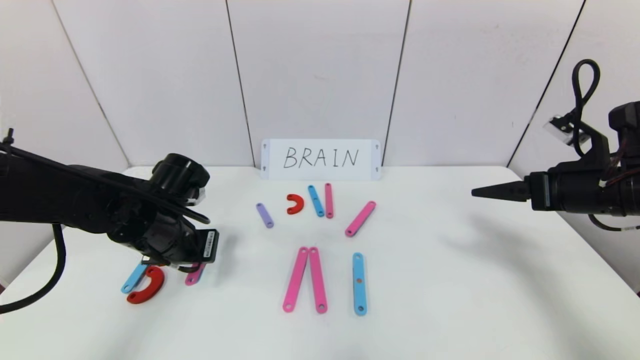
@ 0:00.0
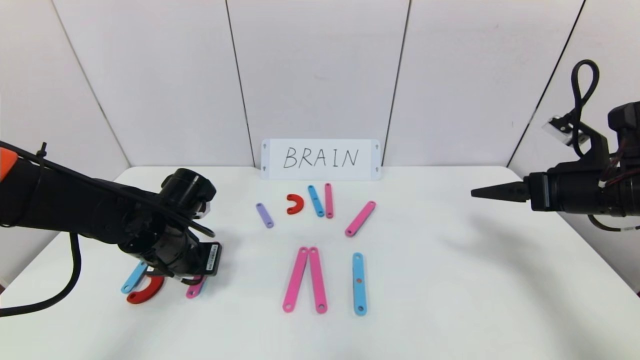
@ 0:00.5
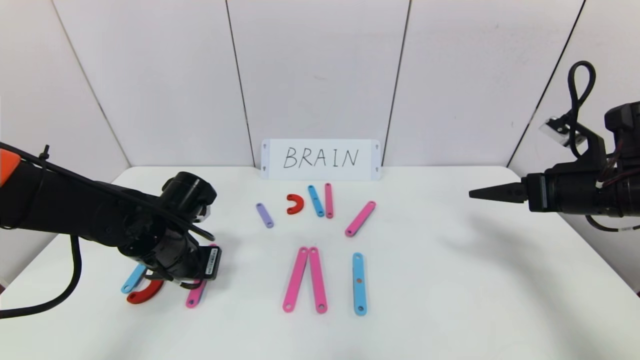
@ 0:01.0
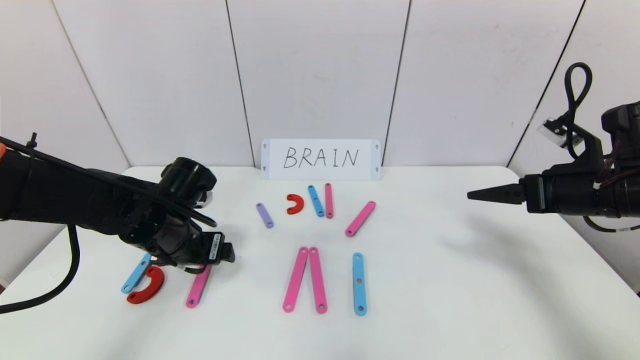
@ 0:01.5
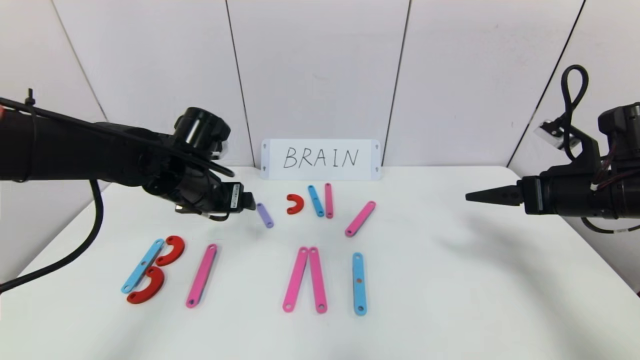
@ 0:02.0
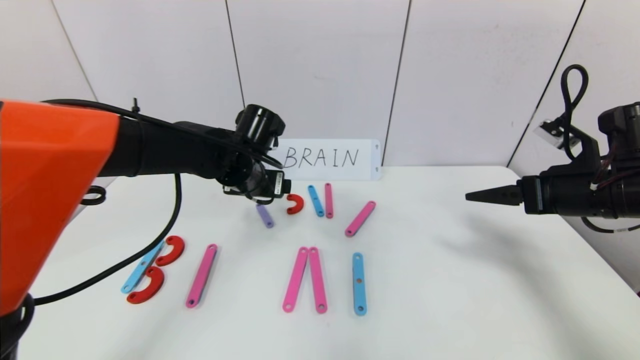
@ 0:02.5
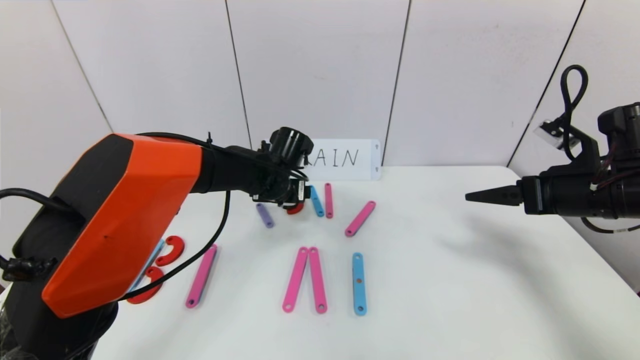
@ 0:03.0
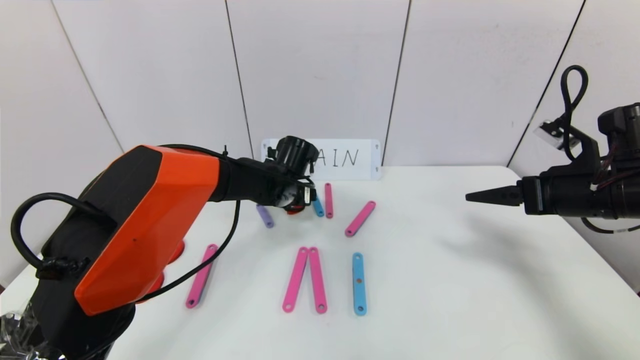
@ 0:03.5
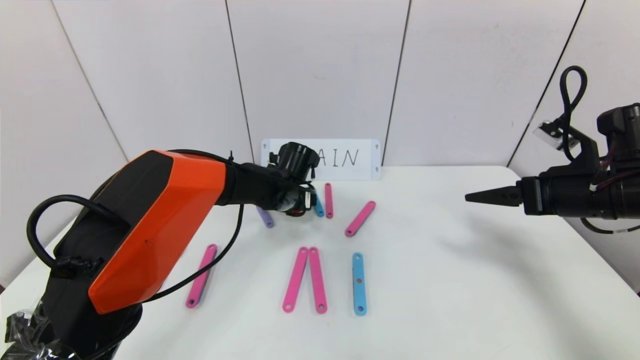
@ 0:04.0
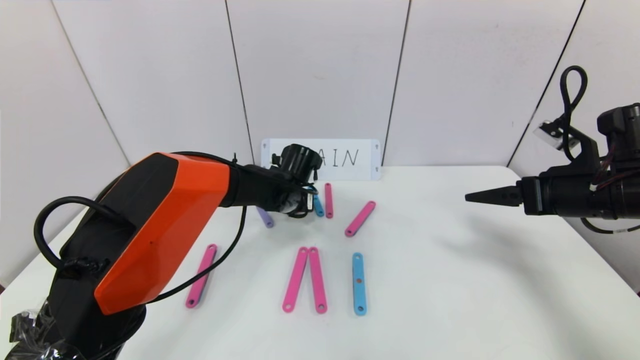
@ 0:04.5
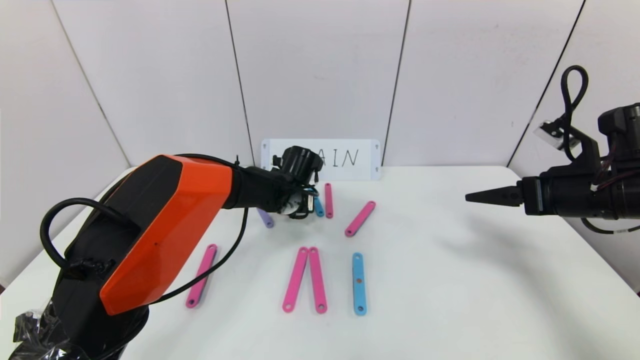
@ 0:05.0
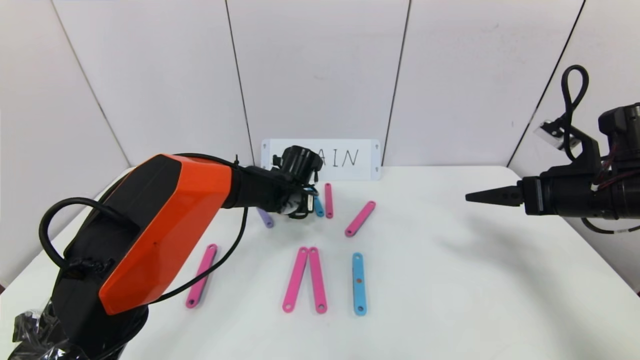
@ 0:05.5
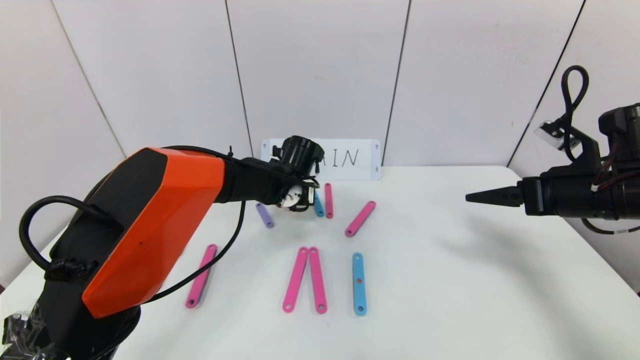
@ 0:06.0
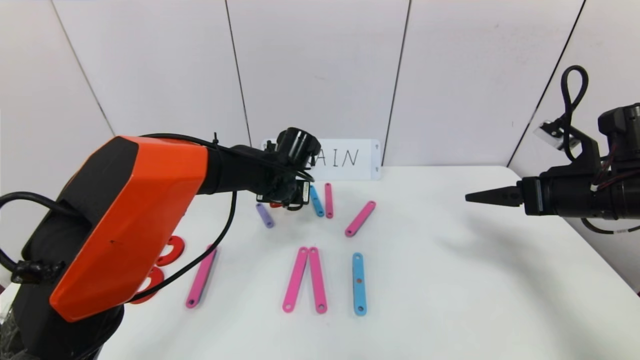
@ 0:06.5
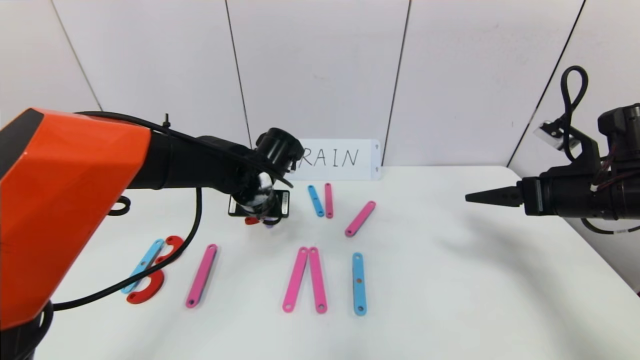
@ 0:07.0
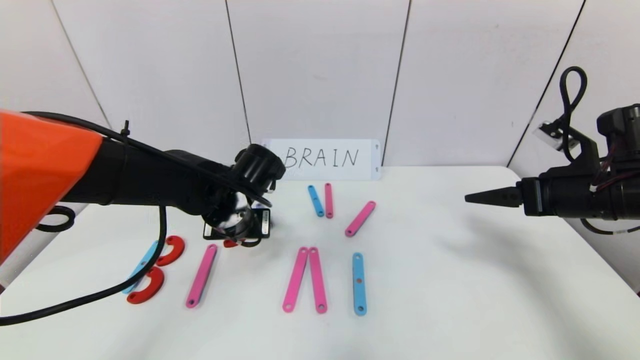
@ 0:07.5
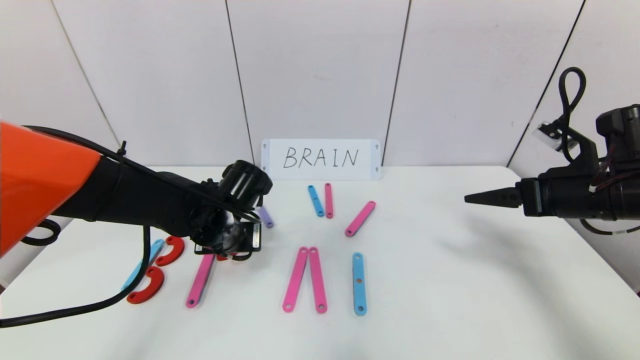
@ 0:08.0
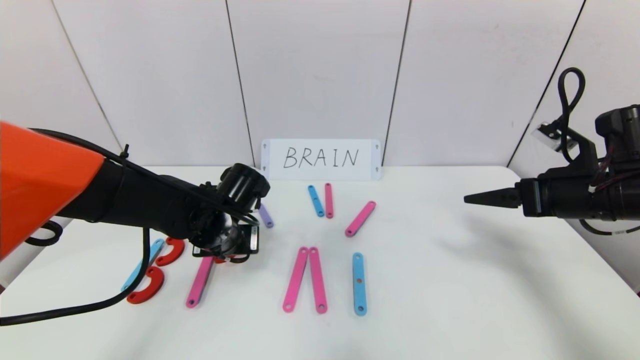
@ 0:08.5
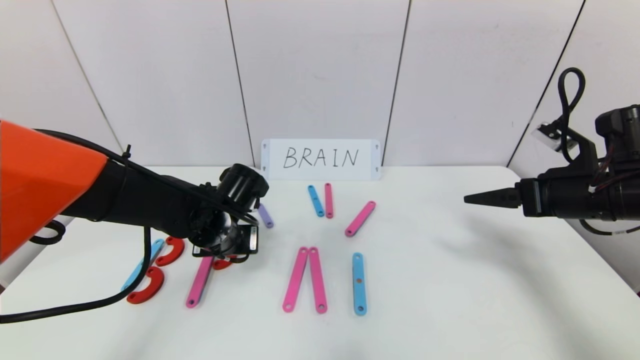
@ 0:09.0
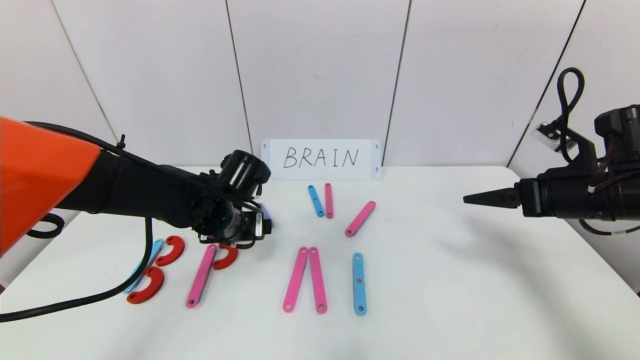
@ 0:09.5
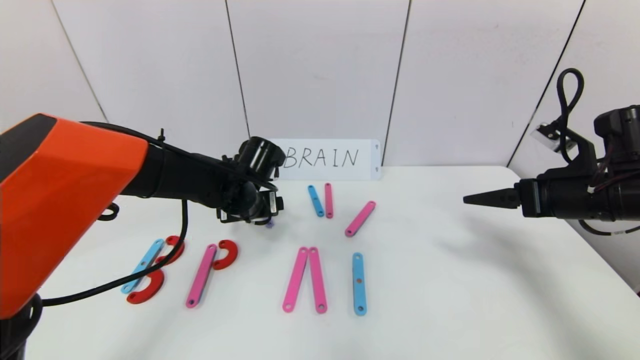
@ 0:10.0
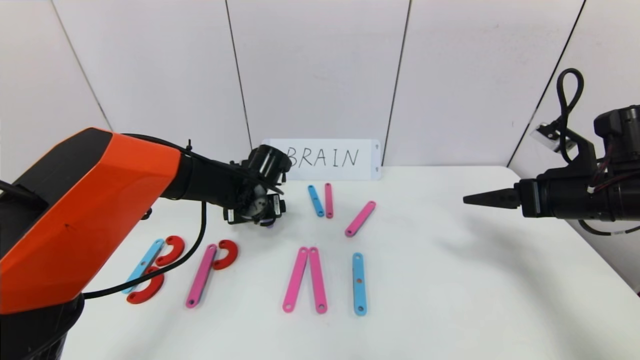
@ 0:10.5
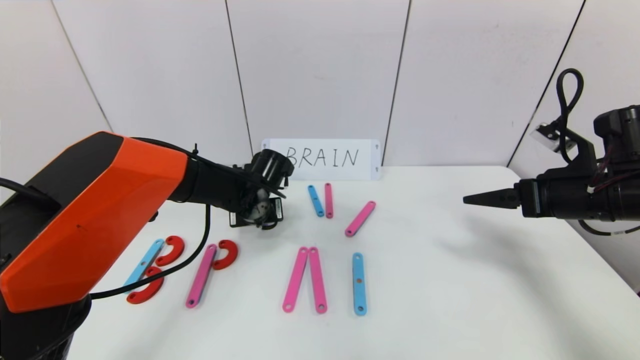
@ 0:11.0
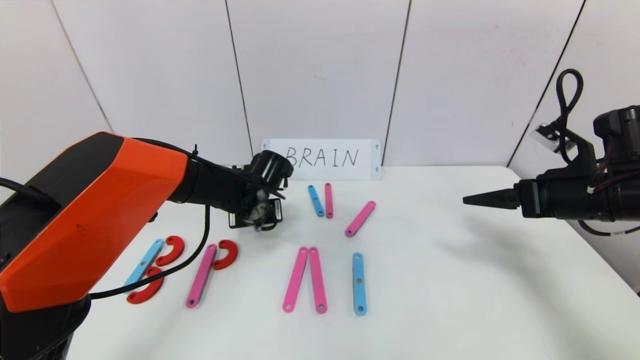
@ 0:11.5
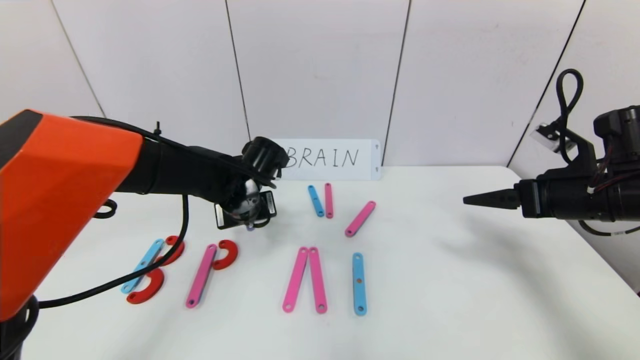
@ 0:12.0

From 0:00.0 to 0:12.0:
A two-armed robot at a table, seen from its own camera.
Task of the whole recording: rearrange the word baai as brain.
From 0:00.0 to 0:02.0: The left gripper goes about 5 cm upward, and opens its fingers.
From 0:02.0 to 0:04.0: The left gripper shifts roughly 15 cm to the right, forward and downward.
From 0:04.0 to 0:06.0: The left gripper closes its fingers.
From 0:06.0 to 0:08.0: The left gripper goes some 15 cm backward and to the left.
From 0:08.0 to 0:10.0: The left gripper travels forward by about 5 cm, and opens up.
From 0:10.0 to 0:12.0: The left gripper closes.

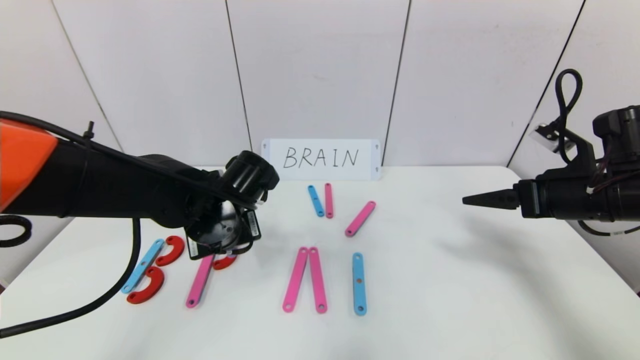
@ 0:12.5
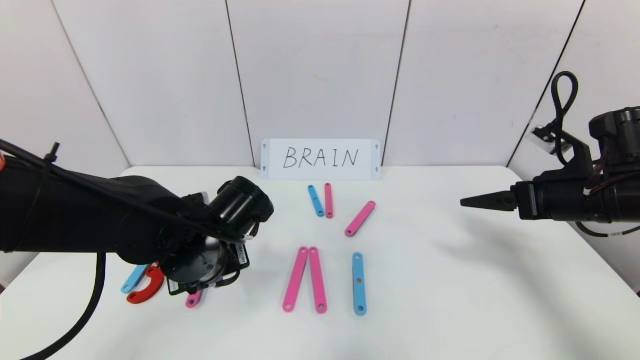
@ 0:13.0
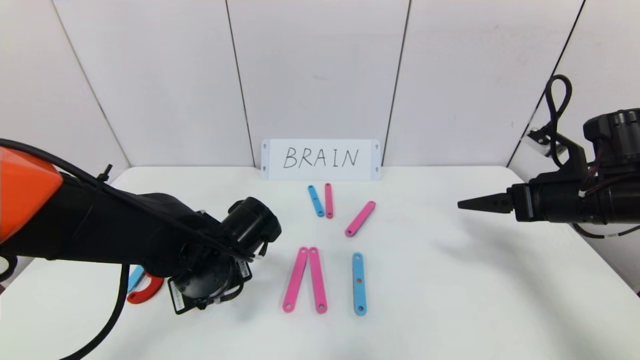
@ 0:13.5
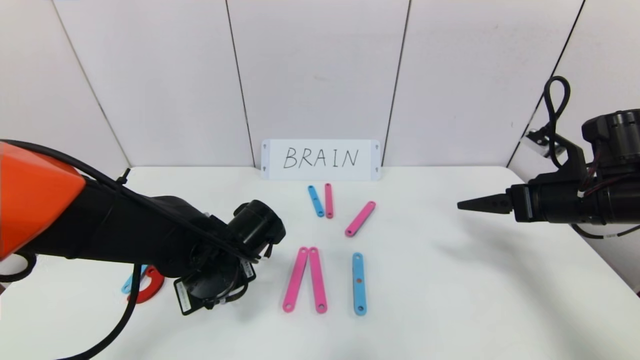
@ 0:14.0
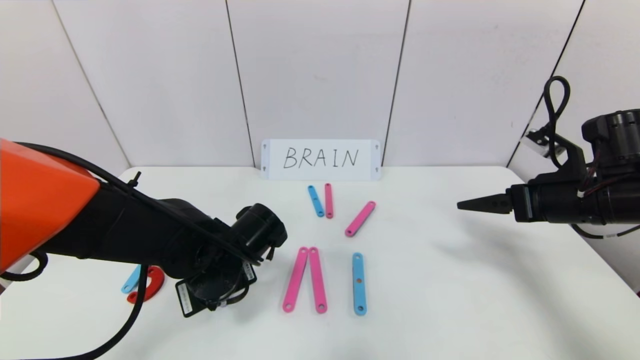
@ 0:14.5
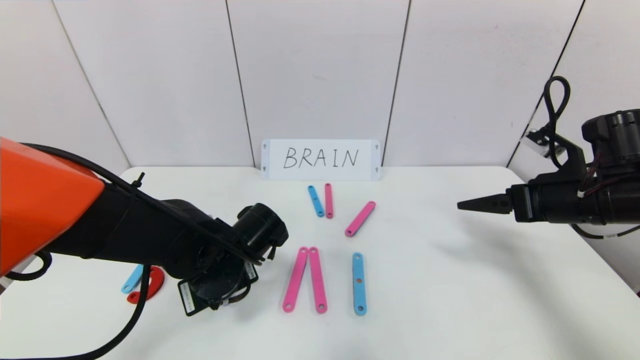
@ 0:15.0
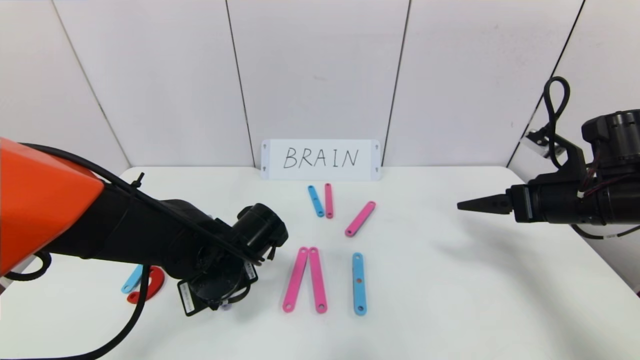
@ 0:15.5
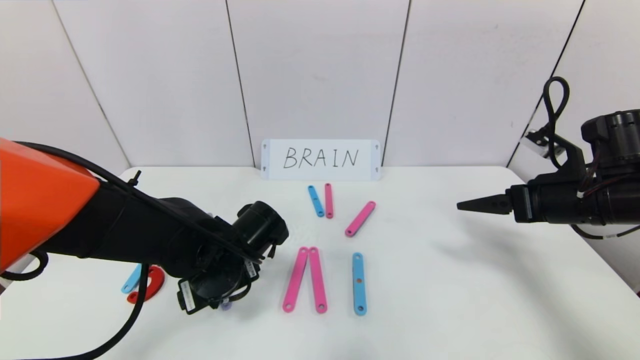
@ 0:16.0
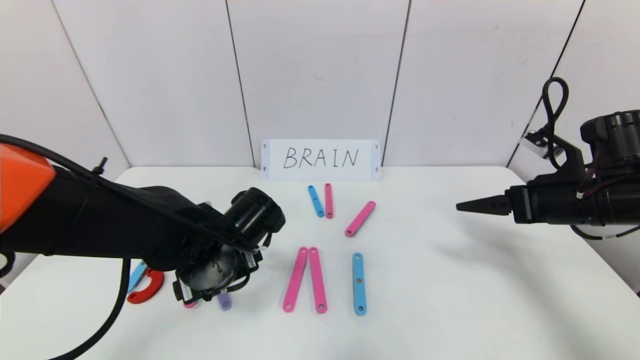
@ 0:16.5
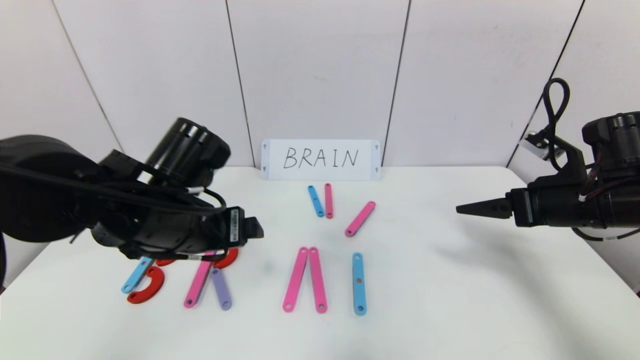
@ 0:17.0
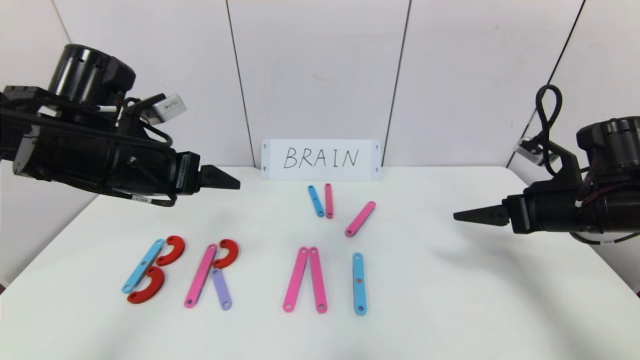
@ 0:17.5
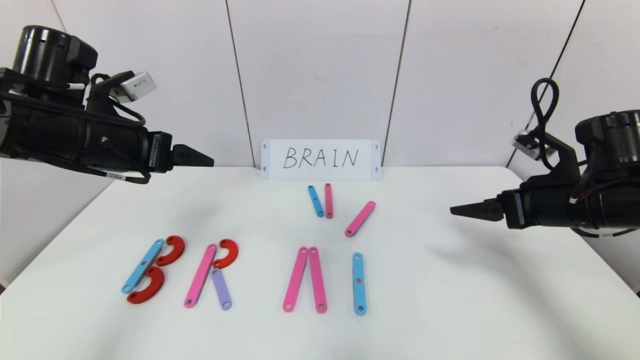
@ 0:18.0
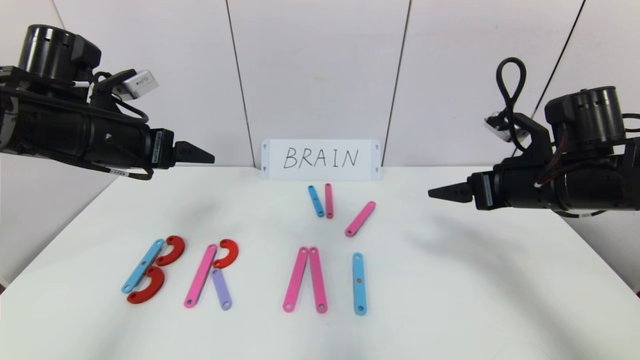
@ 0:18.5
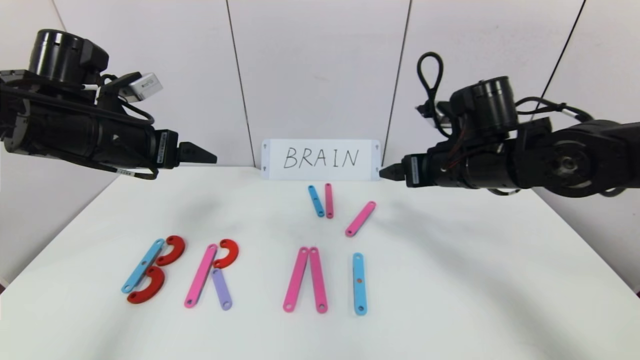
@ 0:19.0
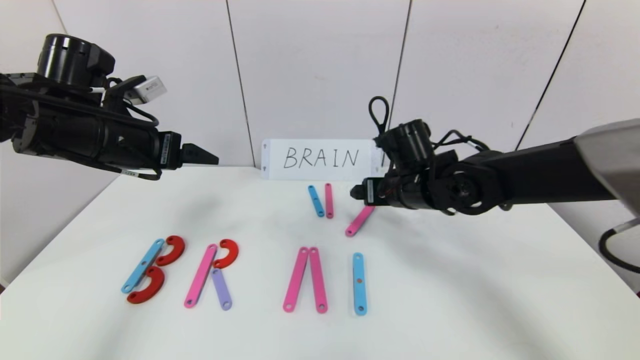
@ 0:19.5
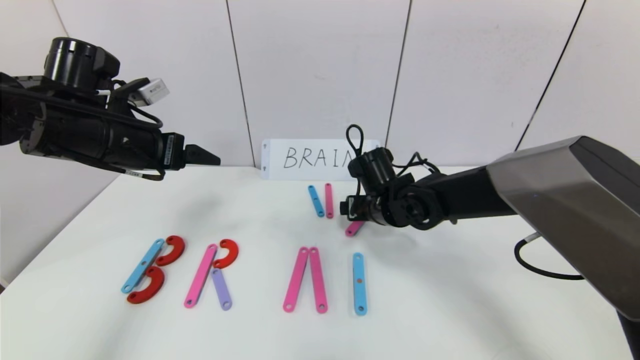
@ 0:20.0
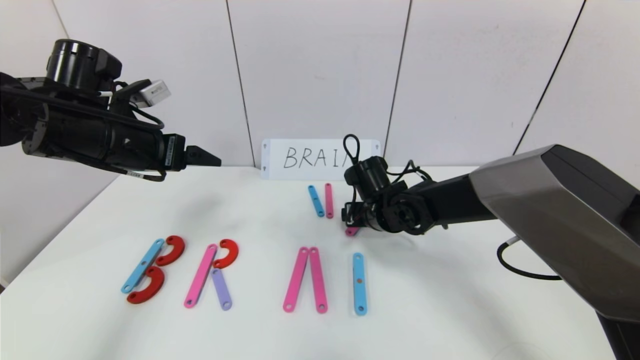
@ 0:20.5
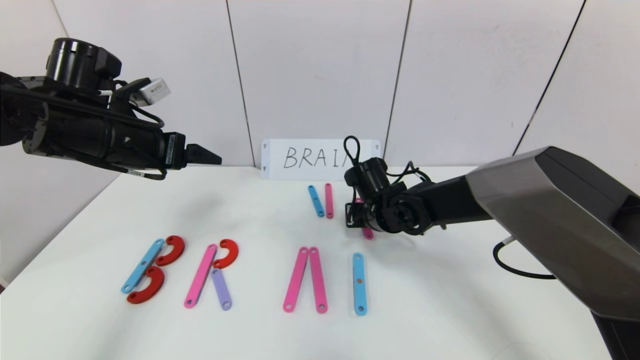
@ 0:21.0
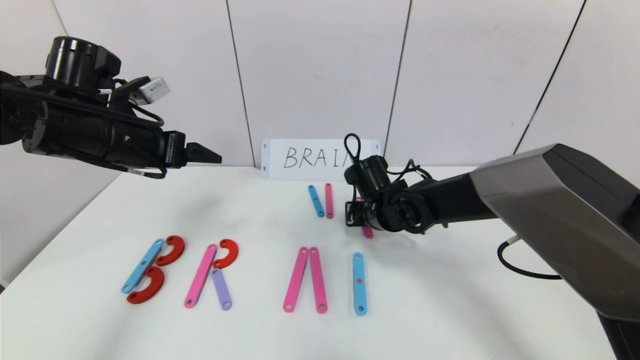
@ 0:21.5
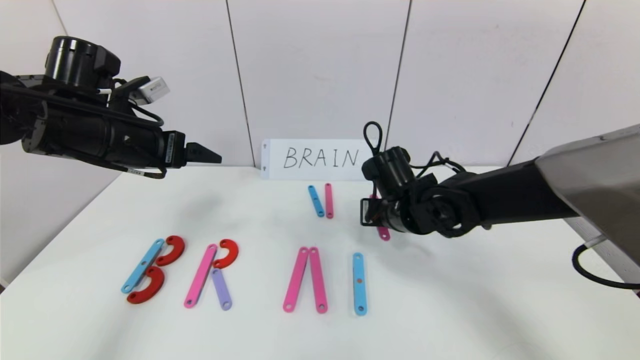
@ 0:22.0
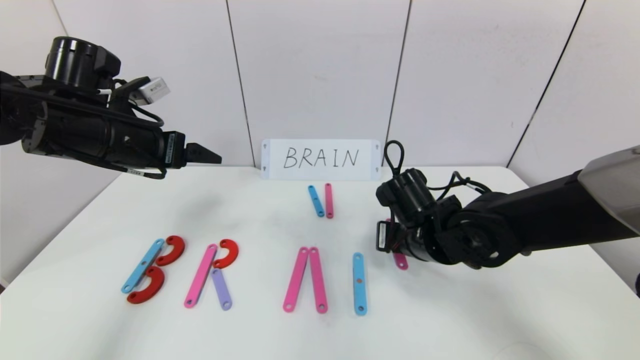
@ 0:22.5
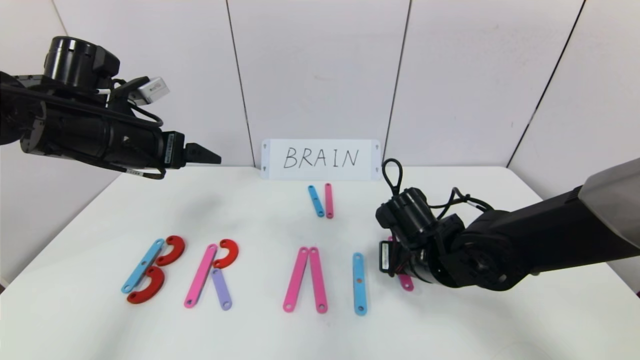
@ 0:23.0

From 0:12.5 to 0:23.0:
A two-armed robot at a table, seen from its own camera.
Task of the whole recording: rearrange the word baai as brain.
Step, from 0:12.5 to 0:15.5: Place the character R between first character B and third character A.
From 0:12.5 to 0:14.5: The left gripper heads downward, covering approximately 5 cm.
From 0:14.5 to 0:16.5: The left gripper opens its fingers.
From 0:16.5 to 0:19.0: The left gripper travels upward and to the left by some 20 cm. The right gripper heads to the left, covering some 15 cm.
From 0:19.0 to 0:21.0: The right gripper shifts some 15 cm downward, to the left and forward, and closes its fingers.
From 0:21.0 to 0:23.0: The right gripper shifts approximately 10 cm backward.
